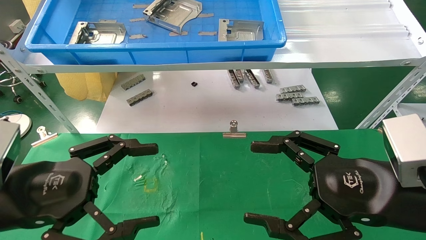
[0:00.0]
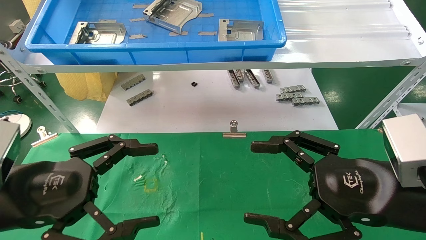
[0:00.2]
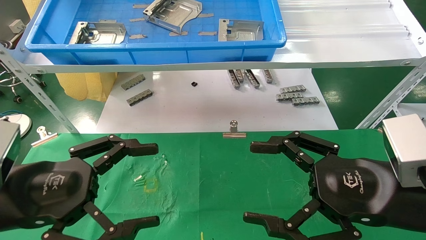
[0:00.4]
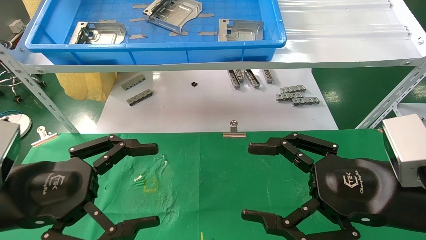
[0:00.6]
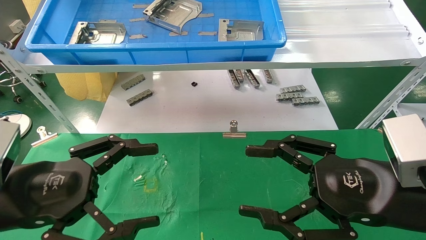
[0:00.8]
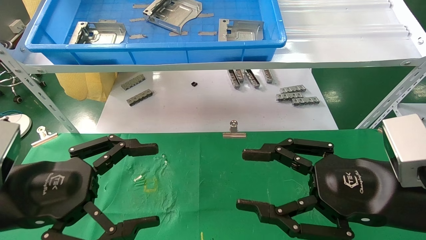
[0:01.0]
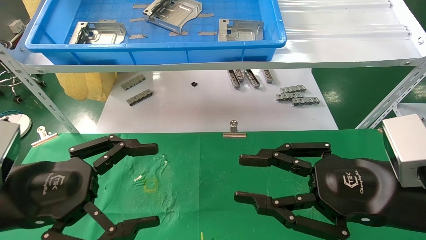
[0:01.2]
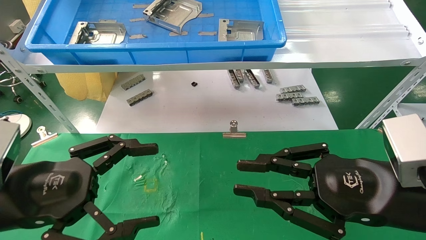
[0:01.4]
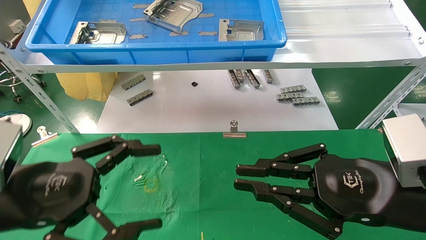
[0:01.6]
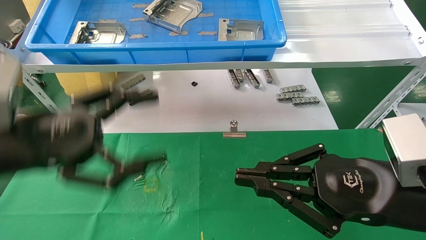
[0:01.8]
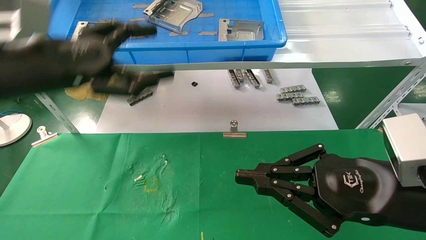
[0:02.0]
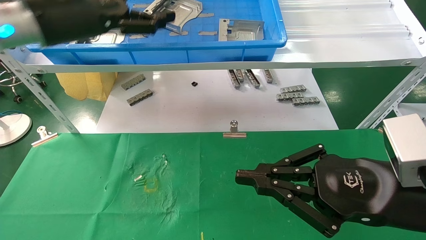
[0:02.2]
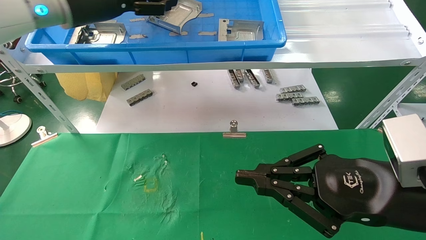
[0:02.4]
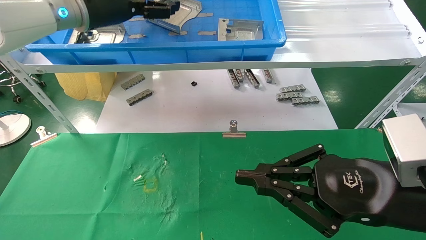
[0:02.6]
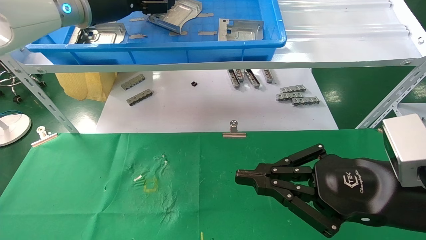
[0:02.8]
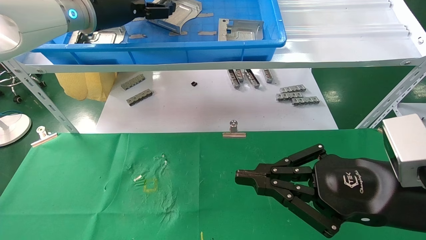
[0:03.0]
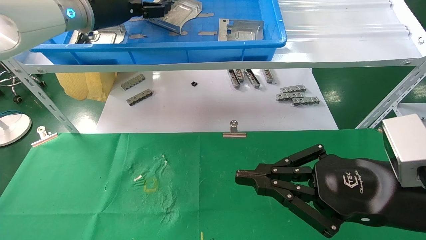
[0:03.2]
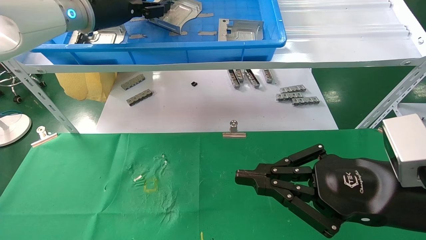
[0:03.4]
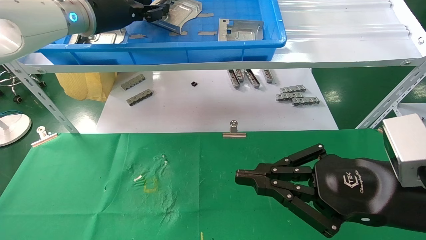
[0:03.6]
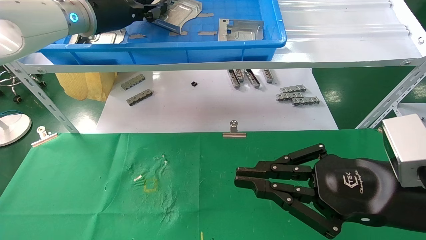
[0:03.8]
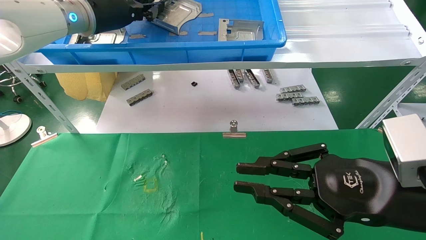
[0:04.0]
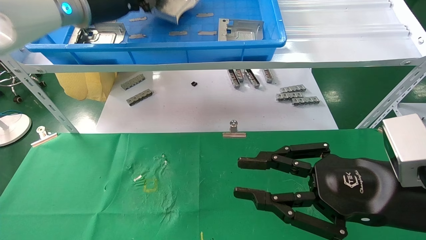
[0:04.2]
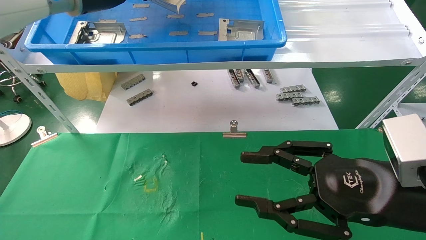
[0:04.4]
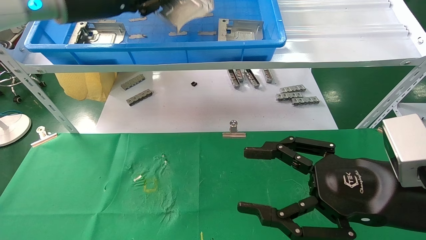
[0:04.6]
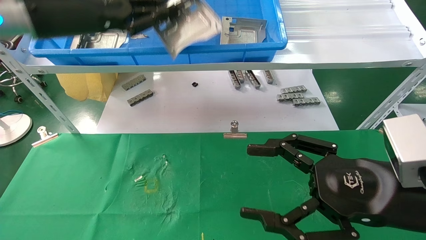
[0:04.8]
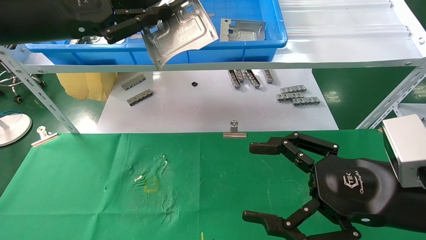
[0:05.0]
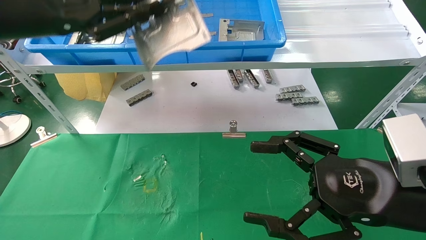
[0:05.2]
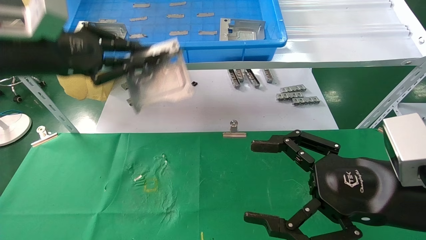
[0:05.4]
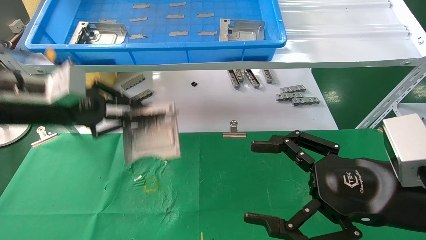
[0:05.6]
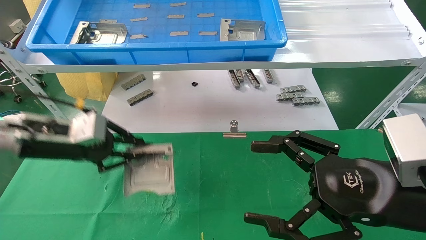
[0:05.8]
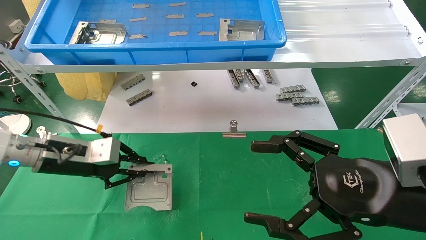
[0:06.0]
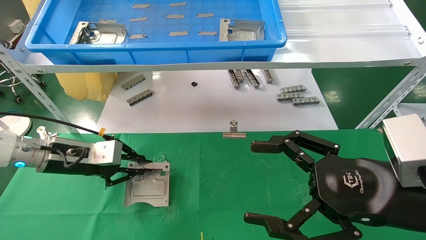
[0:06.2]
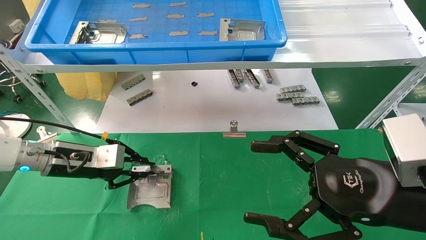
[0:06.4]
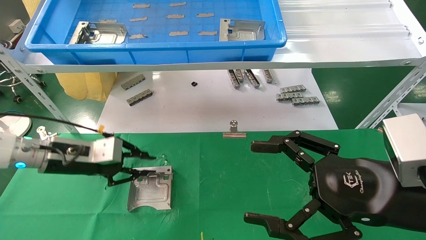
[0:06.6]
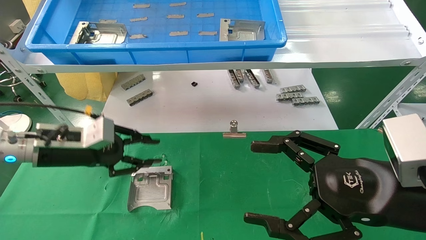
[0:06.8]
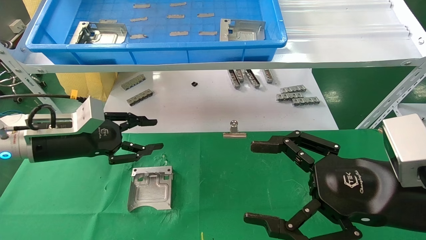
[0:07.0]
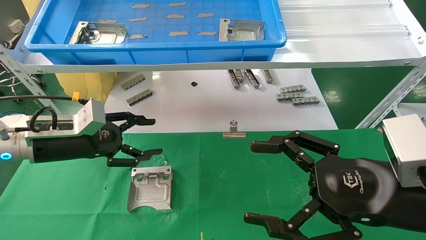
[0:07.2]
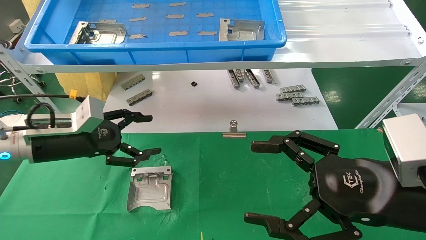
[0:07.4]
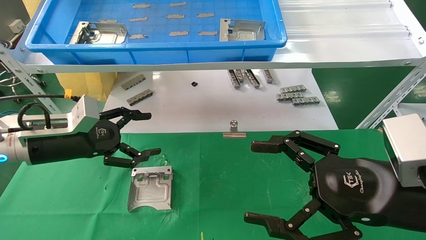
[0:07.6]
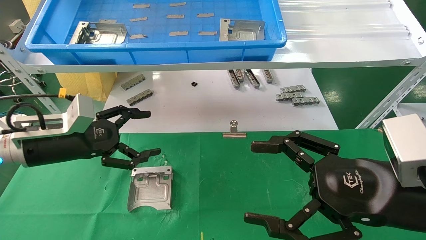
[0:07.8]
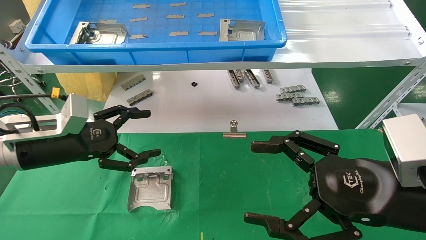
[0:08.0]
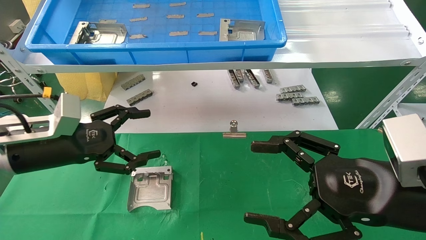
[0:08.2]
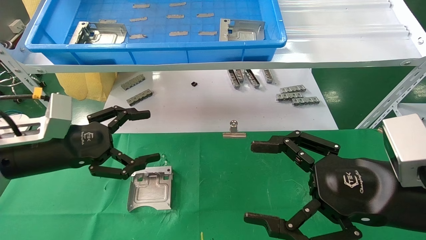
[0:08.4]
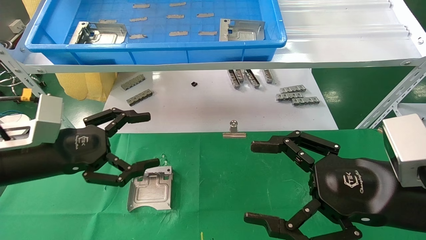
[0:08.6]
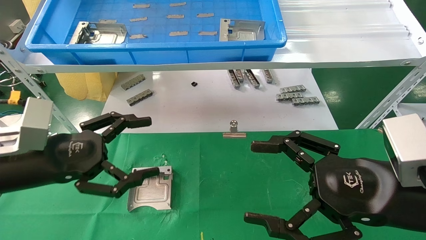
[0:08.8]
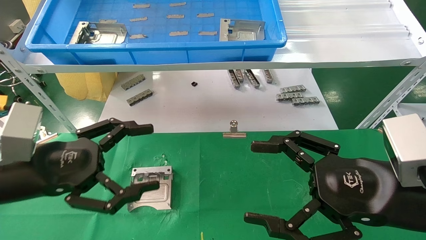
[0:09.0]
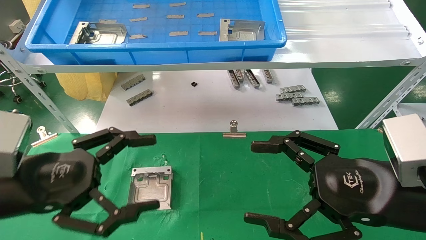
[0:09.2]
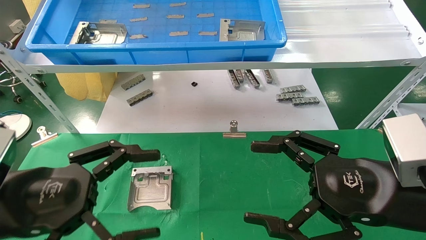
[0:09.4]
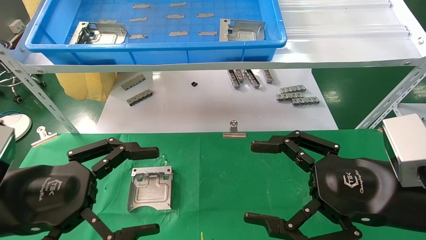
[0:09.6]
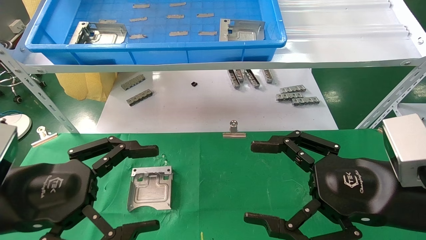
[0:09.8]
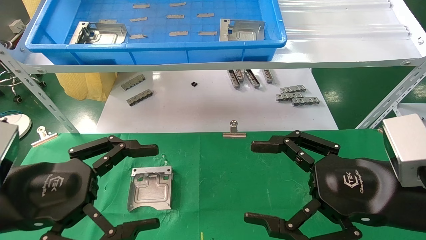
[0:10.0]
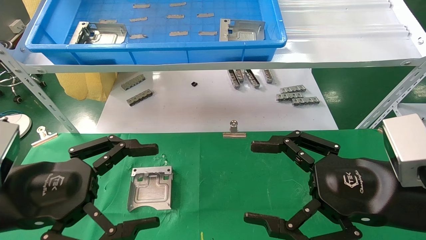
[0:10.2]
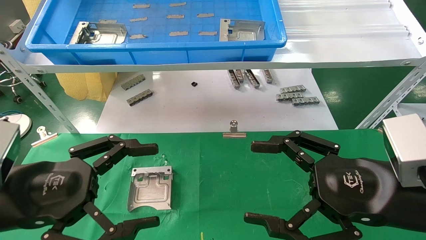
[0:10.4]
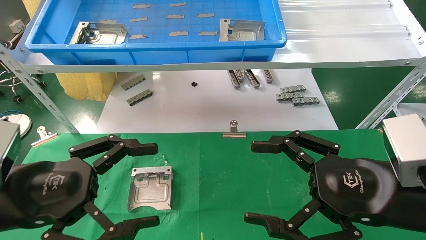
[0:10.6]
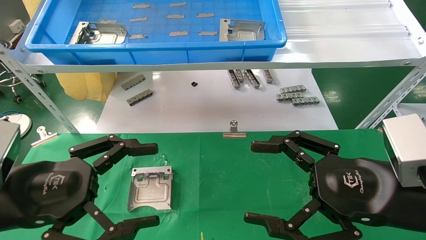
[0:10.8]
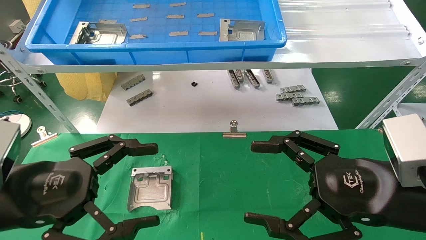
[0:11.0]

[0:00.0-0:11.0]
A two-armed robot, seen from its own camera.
Task of the whole recording: use the mechanical arm to pick up the parts and place them on the table.
Step, 0:02.2 to 0:04.4: Pick up the hard drive bracket from the feeding area.
Step, 0:04.6 to 0:08.0: Place the hard drive bracket into the box.
0:00.0 to 0:01.6: The right gripper closes up.
0:01.6 to 0:03.2: The left gripper moves forward and upward, about 30 cm.
0:03.2 to 0:04.8: The right gripper opens. Meanwhile the left gripper heads backward, covering about 10 cm, and closes.
0:04.8 to 0:06.2: The left gripper moves downward, about 25 cm.
0:06.2 to 0:07.8: The left gripper opens its fingers.
0:07.8 to 0:09.4: The left gripper moves backward, about 15 cm.
0:09.4 to 0:11.0: Both grippers stay put.

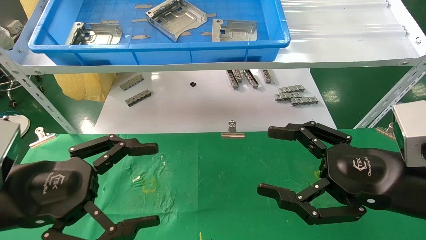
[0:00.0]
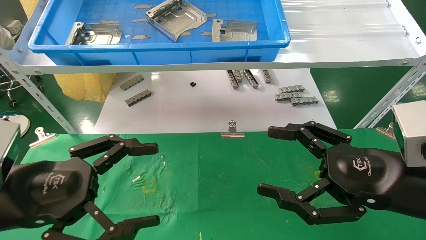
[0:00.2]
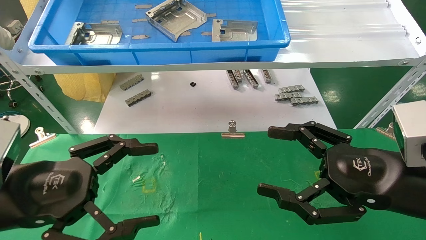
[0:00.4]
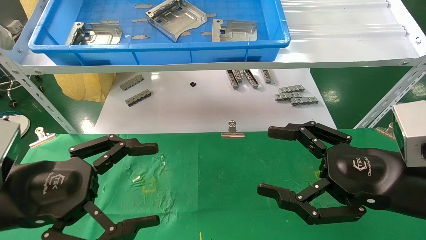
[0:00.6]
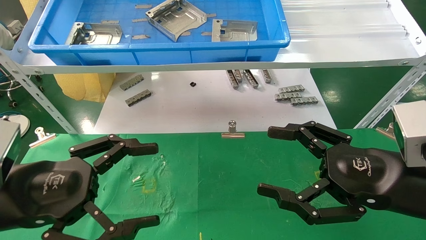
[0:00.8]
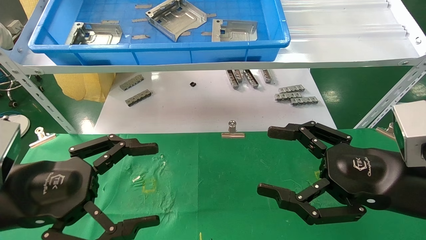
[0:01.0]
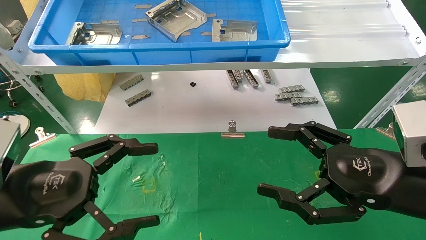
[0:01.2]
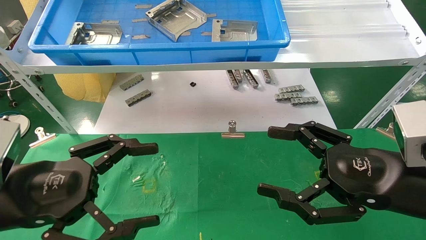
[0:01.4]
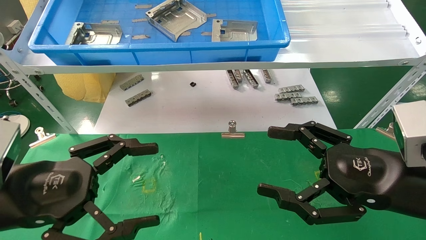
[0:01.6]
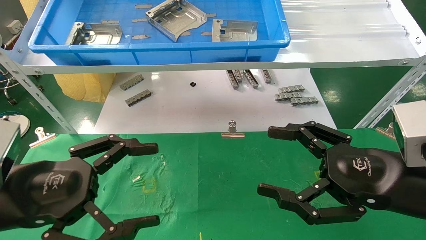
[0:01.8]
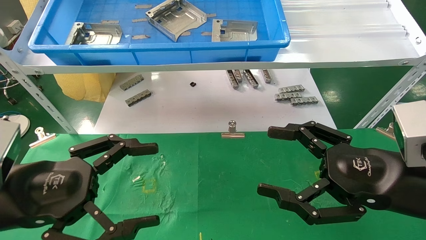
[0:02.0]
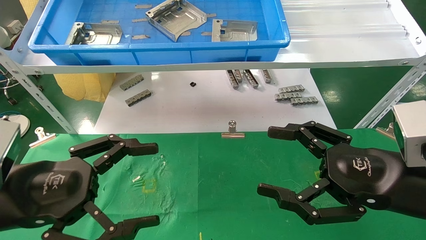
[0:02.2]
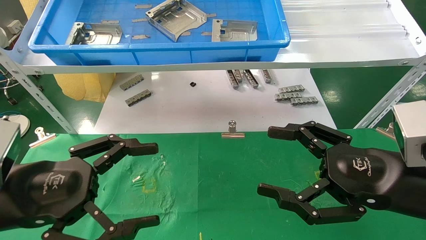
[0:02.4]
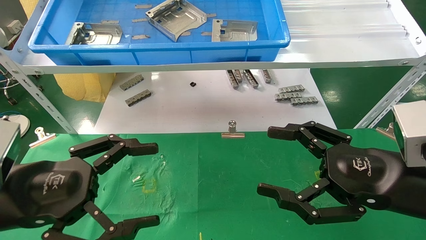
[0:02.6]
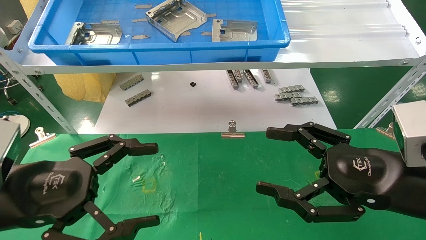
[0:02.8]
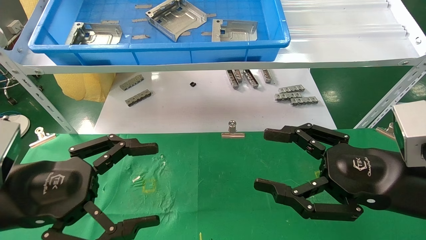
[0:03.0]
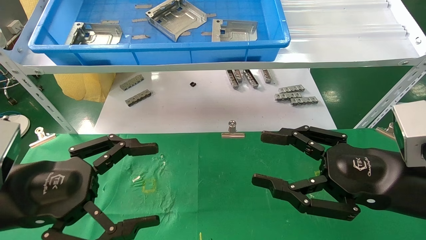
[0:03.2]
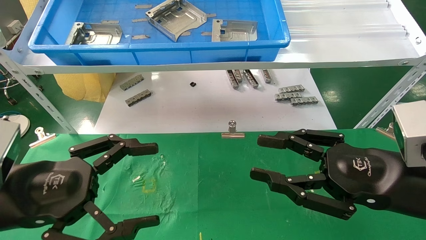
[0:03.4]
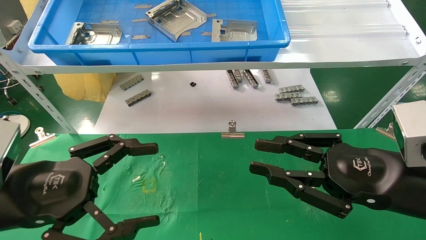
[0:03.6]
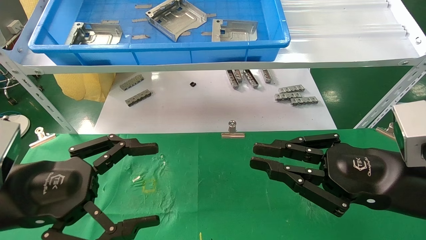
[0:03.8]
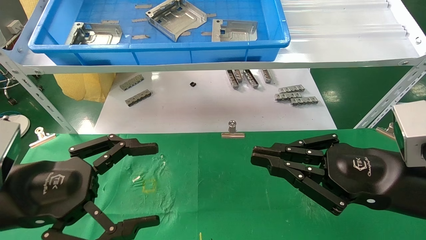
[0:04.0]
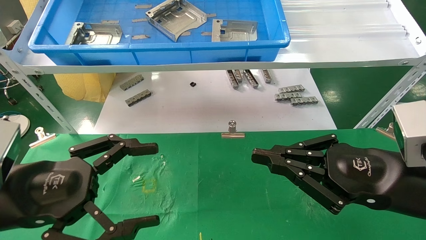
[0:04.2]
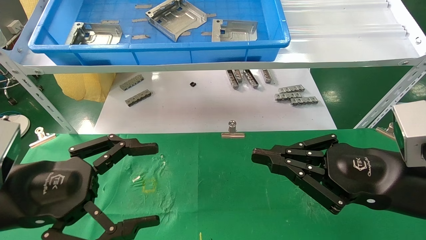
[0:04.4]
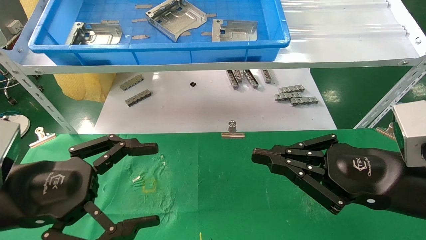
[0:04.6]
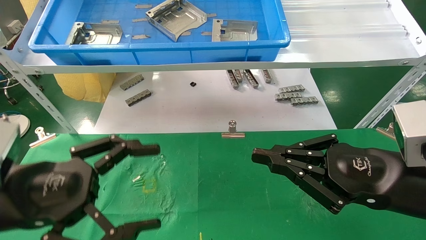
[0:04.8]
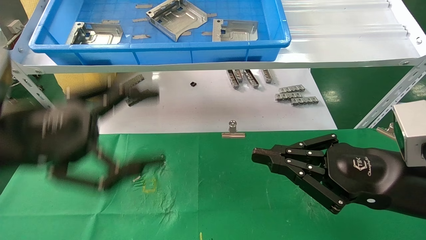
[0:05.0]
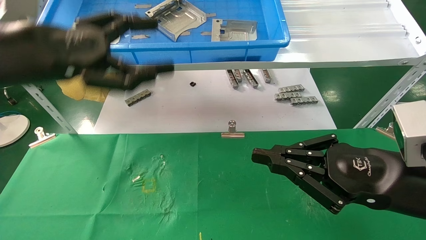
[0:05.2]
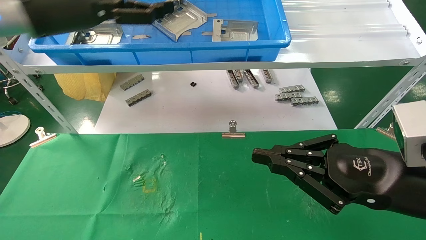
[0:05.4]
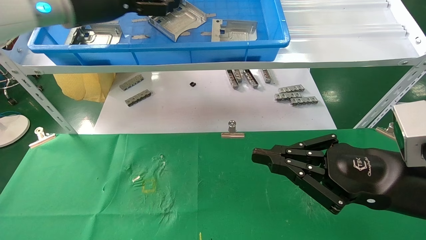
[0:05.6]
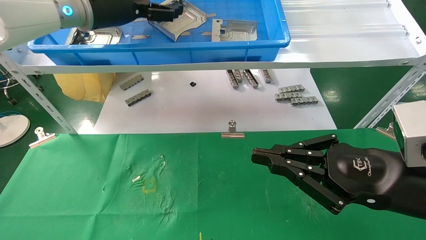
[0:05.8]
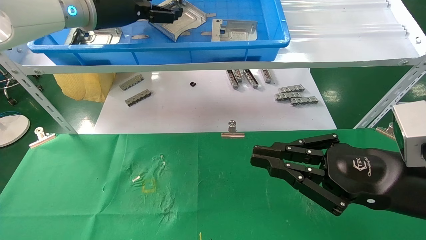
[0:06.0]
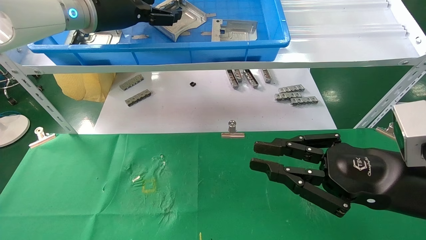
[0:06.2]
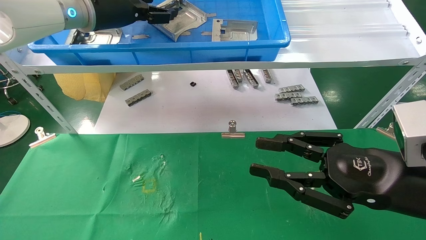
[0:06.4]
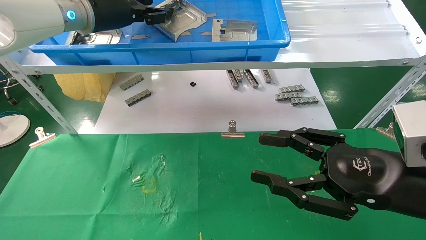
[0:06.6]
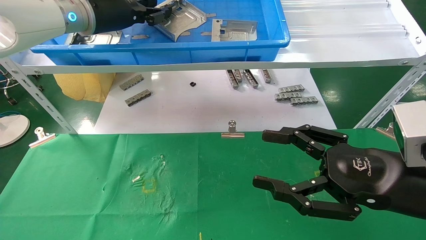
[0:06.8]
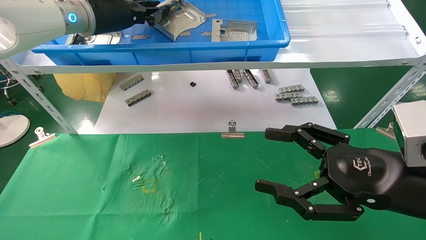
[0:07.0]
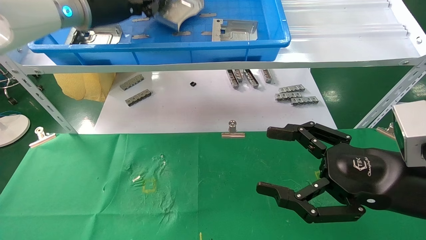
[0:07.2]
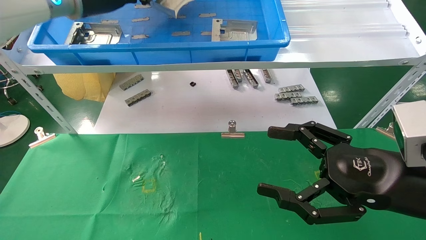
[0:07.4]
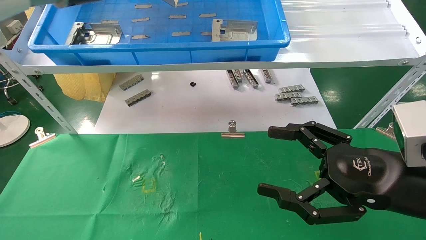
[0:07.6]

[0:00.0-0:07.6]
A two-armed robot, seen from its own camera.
Task of the whole recording: use the mechanical arm to pick up the parts and place them on the table.
Step, 0:02.6 to 0:06.4: Pick up the hard drive bracket from the feeding area.
0:00.0 to 0:03.0: The two grippers keep their place.
0:03.0 to 0:04.6: The right gripper closes up.
0:04.6 to 0:06.0: The left gripper shifts roughly 30 cm forward and upward.
0:06.0 to 0:07.6: The right gripper opens up; the left gripper closes its fingers.
